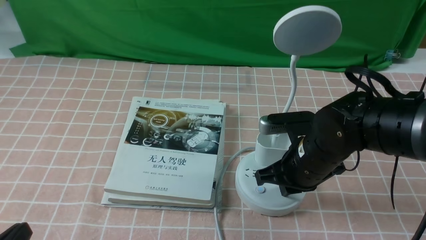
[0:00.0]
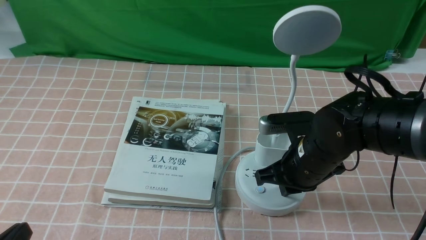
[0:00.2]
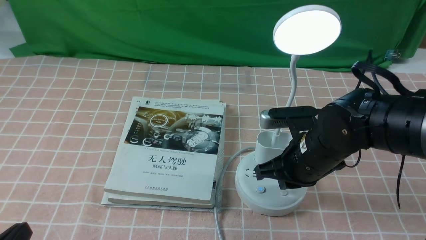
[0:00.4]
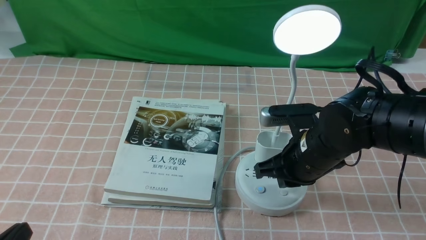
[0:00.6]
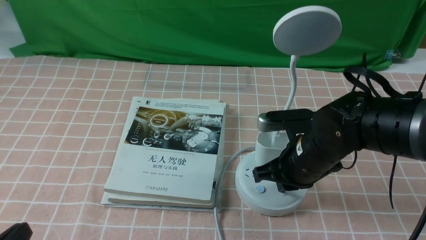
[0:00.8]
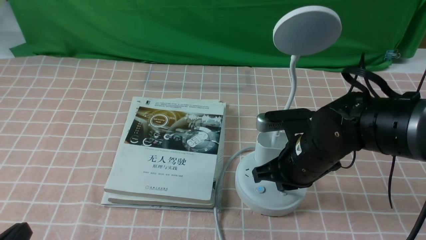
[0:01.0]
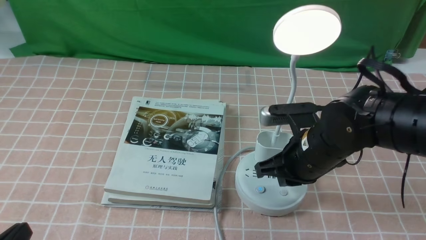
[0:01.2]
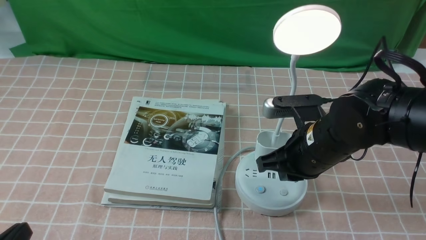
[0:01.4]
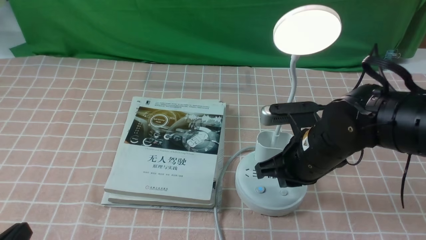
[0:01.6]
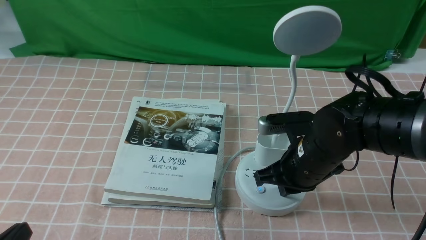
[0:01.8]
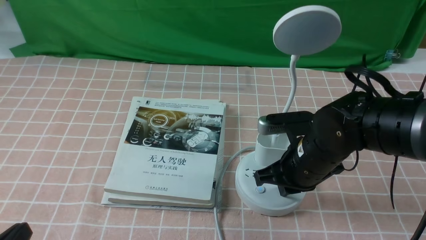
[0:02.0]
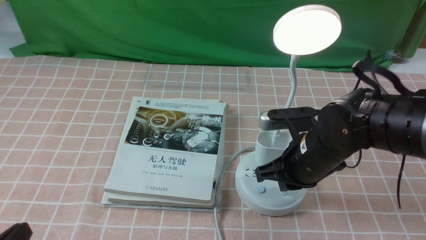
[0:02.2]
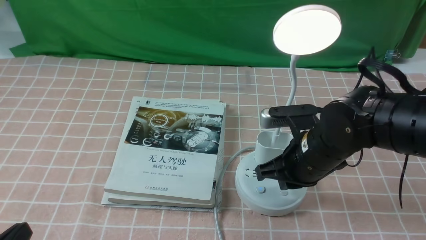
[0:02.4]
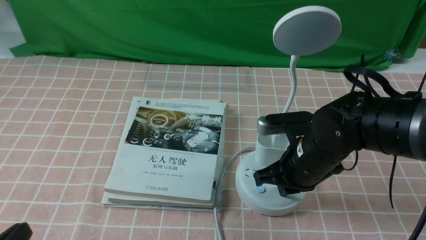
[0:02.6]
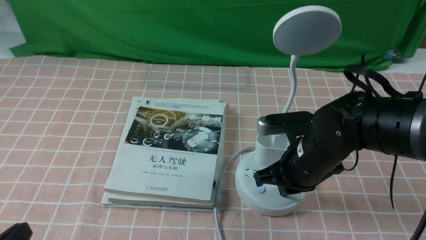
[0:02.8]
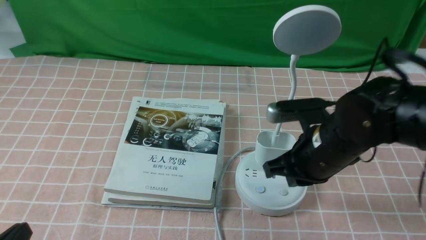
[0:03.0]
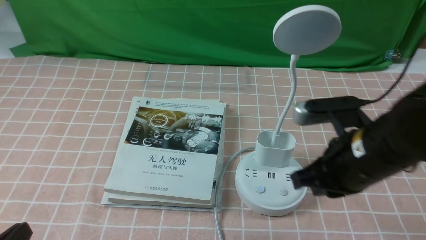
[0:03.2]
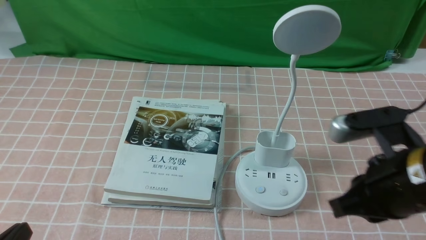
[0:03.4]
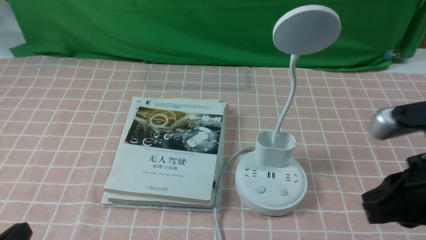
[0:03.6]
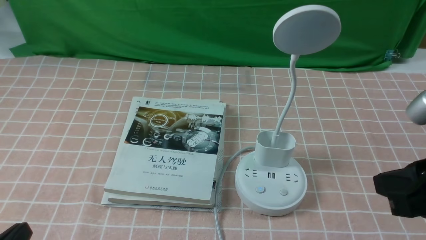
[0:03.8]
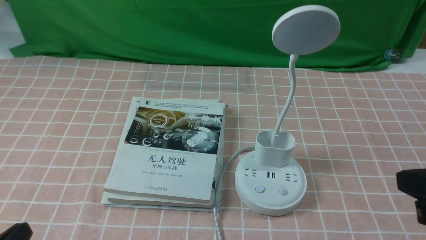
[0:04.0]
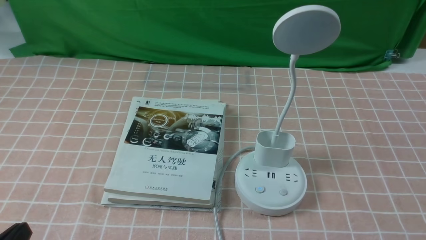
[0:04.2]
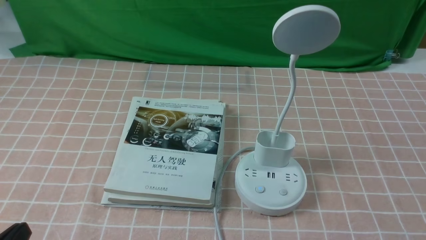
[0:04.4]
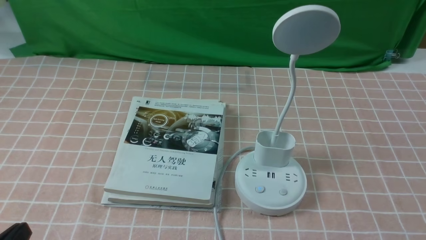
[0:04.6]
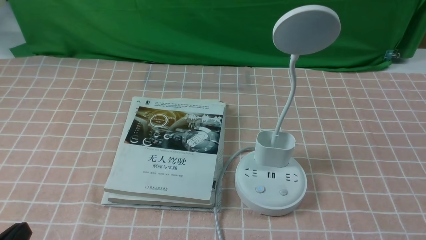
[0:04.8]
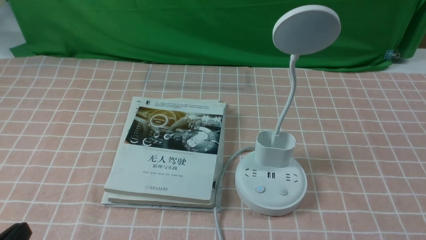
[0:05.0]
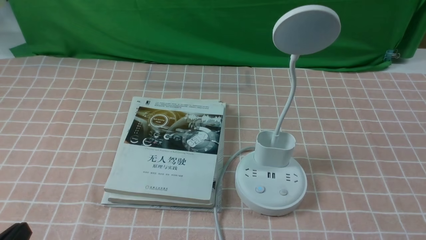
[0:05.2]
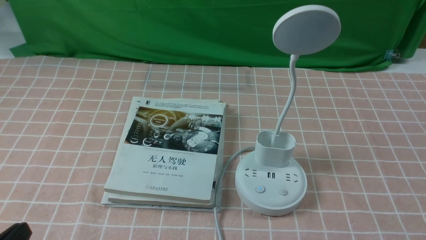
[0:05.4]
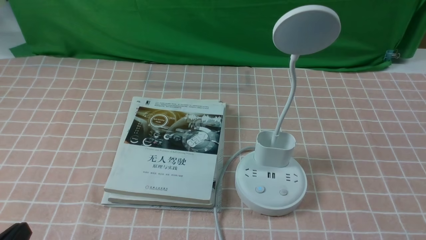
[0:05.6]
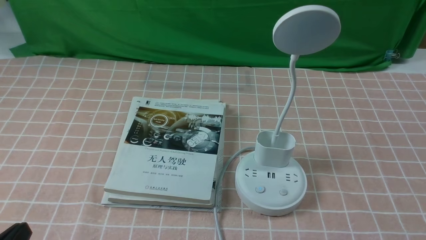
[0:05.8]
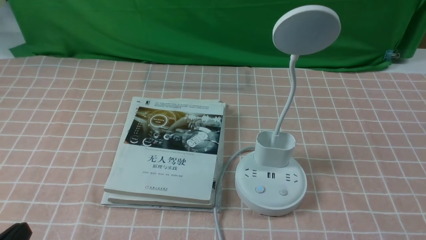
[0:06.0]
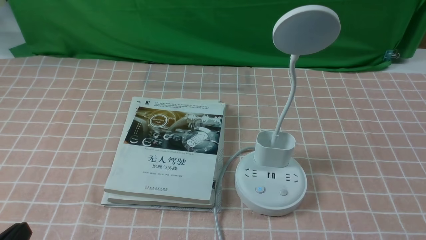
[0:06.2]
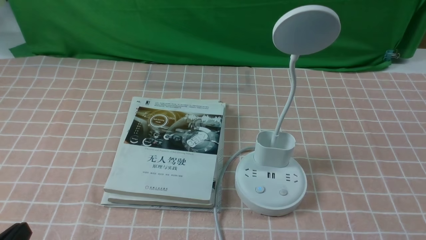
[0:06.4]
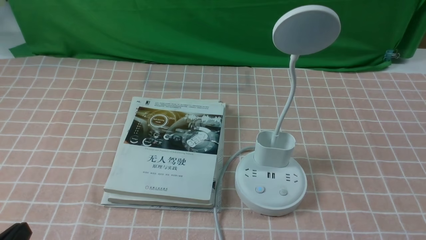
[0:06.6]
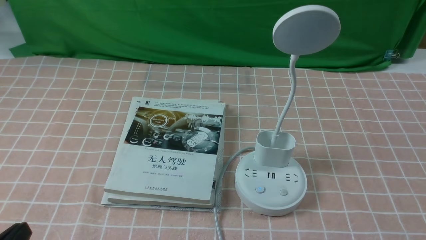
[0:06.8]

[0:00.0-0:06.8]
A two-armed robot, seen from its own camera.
Task of the whole recording: turn off the table lamp on the pink coffee tablecloth by hand.
Step, 0:00.0 to 0:03.0: use the right arm to press the button switch on the lamp holder.
0:00.0 to 0:02.8: There are only small adjustments of the grippers.
0:02.8 to 0:04.0: The right gripper travels backward, to the right and upward by roughly 25 cm.
0:04.0 to 0:05.4: The right gripper goes approximately 15 cm downward, backward and to the right.
